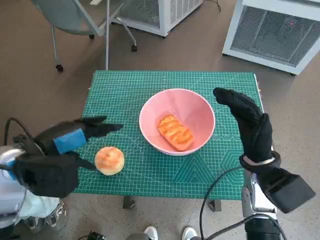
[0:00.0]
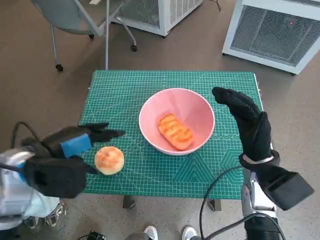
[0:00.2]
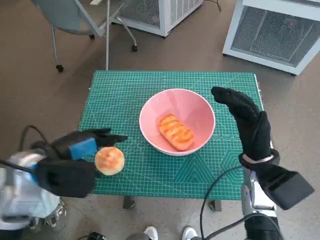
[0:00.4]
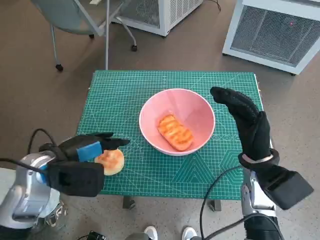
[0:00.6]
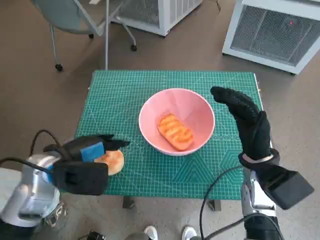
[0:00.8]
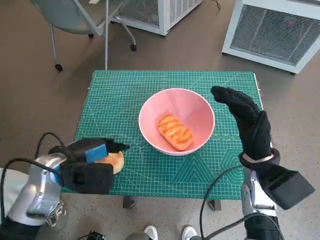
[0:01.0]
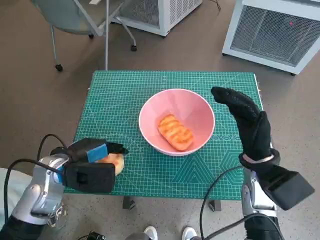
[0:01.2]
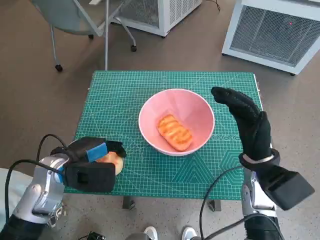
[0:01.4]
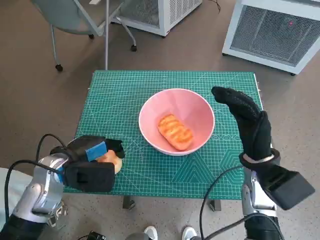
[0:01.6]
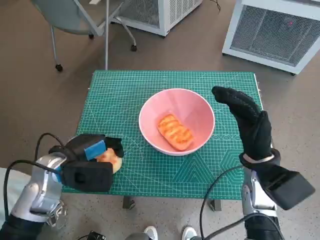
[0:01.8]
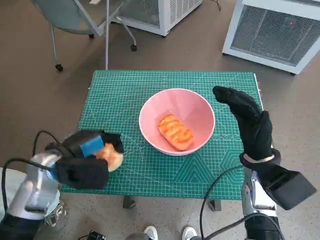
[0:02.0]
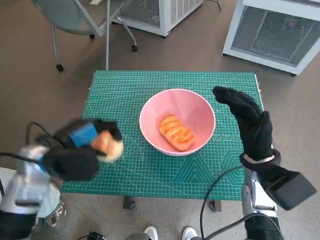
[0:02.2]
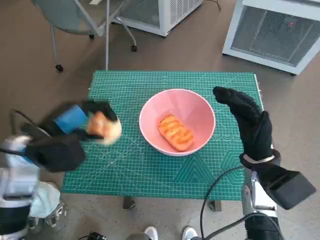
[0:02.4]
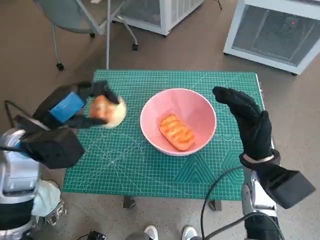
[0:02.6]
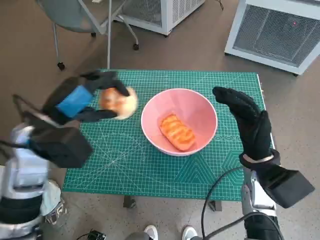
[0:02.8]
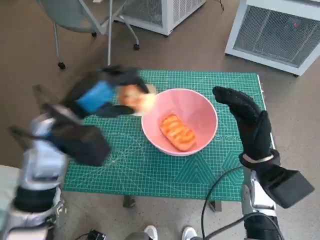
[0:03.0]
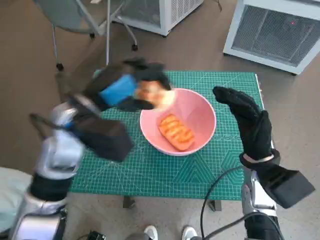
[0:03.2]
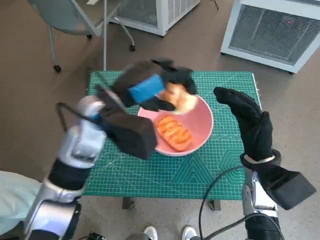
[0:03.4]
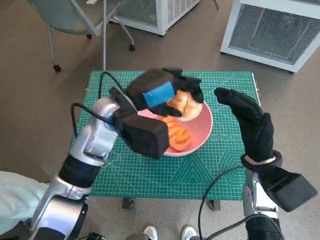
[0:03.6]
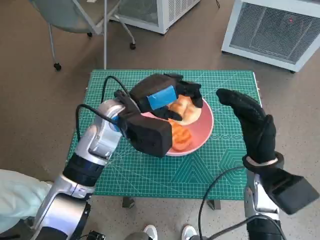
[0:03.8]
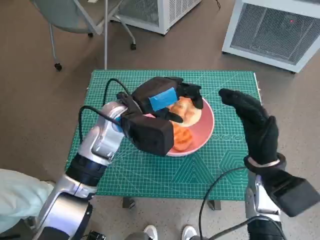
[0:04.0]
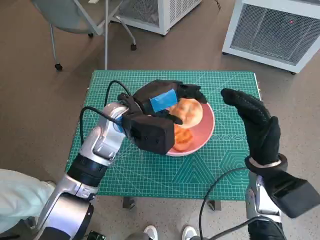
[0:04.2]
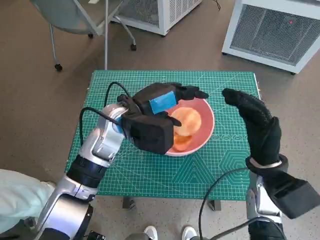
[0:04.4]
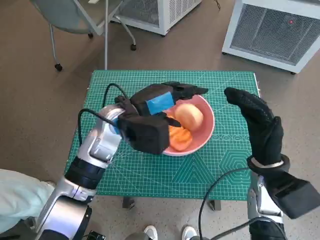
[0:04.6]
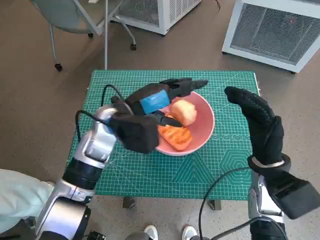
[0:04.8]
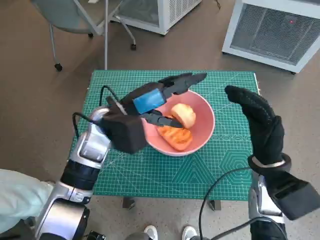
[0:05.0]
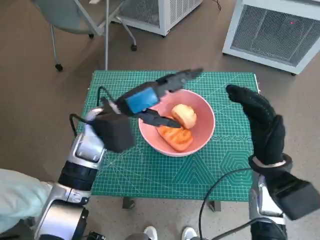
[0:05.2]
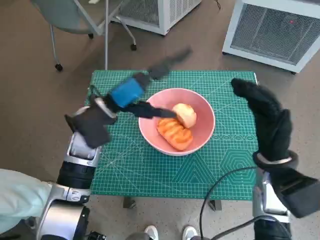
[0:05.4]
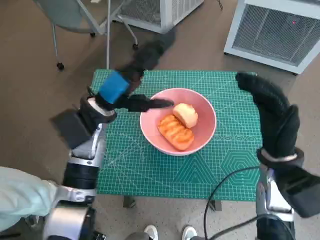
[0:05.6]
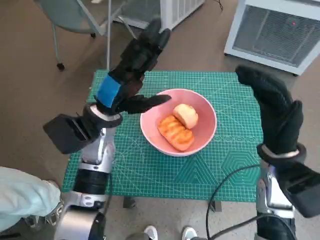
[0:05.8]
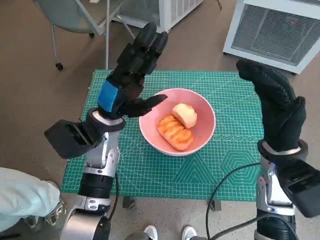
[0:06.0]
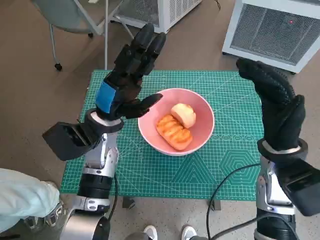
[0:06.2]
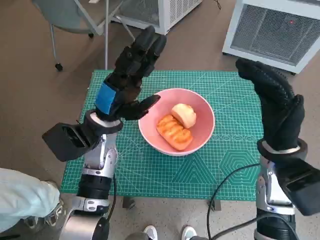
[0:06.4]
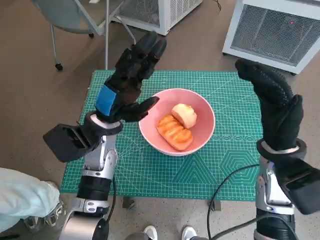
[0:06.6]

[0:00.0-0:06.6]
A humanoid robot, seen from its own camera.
Task of the whole recording: Push the bowl into the center of the table and put the bread into the bowl.
Step, 1.6 to 4.4 s: Place the round bread in pink bowl with left hand.
0.0 to 1.6 s: The left hand moves downward, some 10 cm.
1.6 to 3.2 s: The left hand moves upward and to the right, about 15 cm.
3.2 to 5.0 s: The left hand moves some 5 cm.

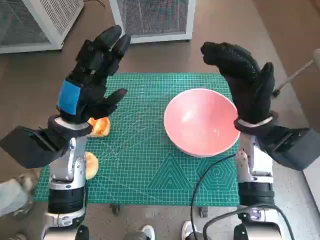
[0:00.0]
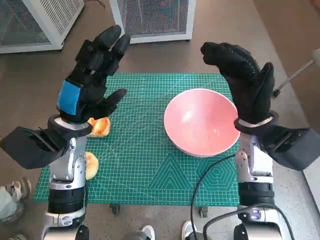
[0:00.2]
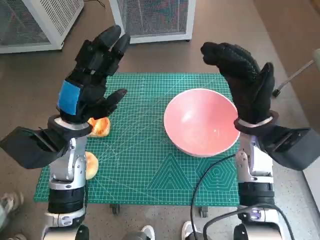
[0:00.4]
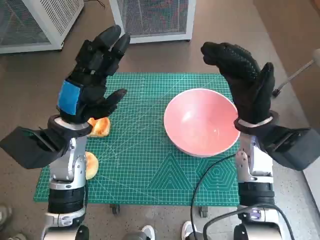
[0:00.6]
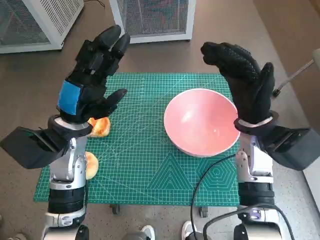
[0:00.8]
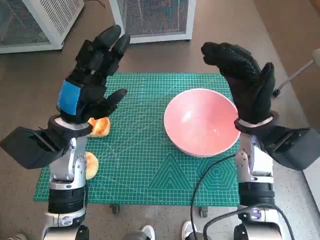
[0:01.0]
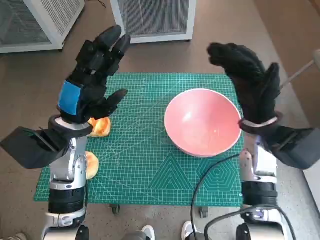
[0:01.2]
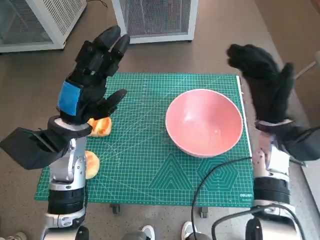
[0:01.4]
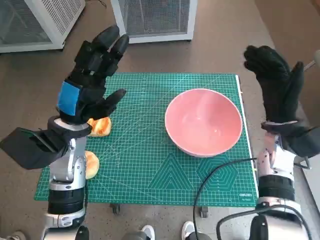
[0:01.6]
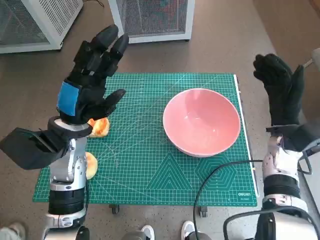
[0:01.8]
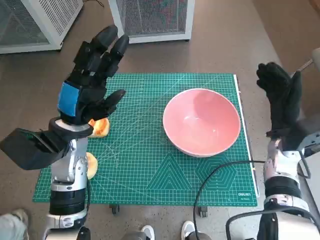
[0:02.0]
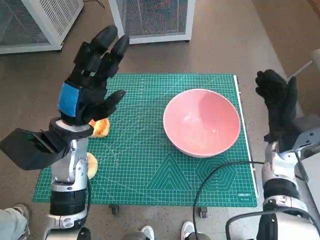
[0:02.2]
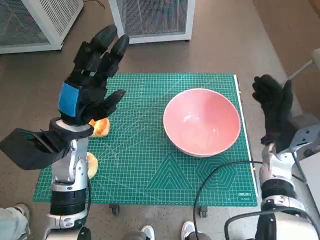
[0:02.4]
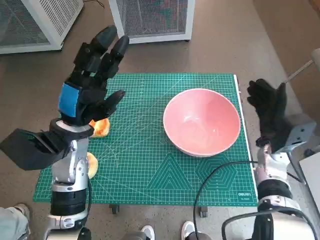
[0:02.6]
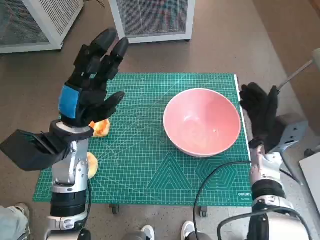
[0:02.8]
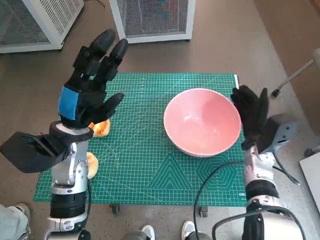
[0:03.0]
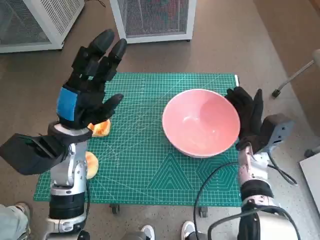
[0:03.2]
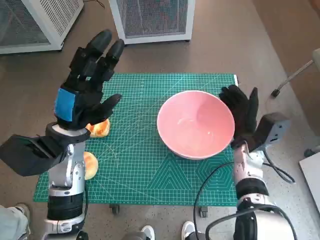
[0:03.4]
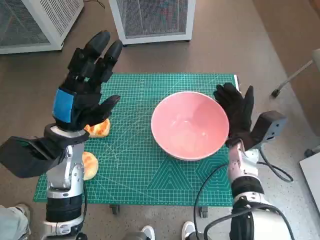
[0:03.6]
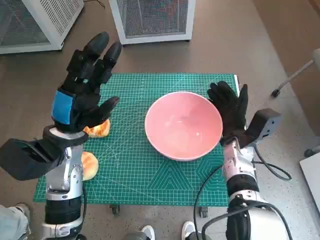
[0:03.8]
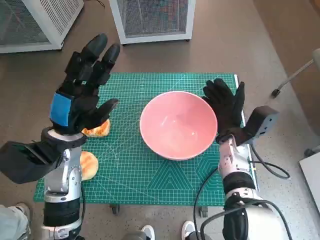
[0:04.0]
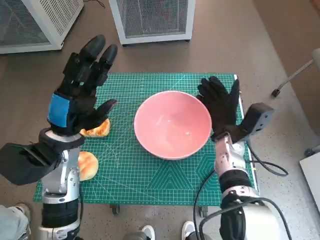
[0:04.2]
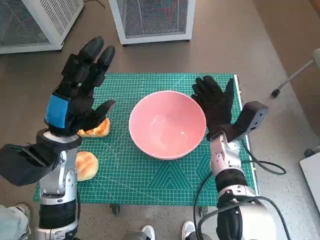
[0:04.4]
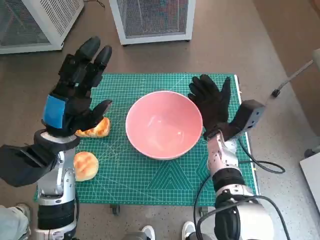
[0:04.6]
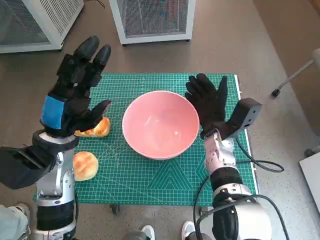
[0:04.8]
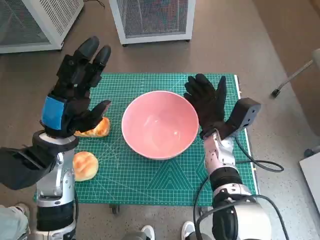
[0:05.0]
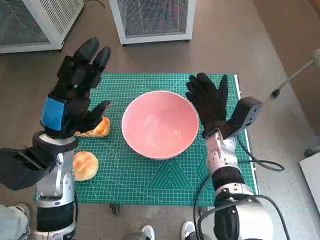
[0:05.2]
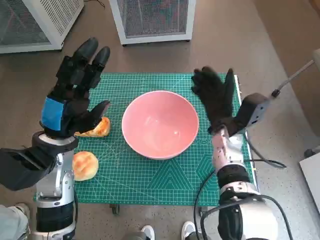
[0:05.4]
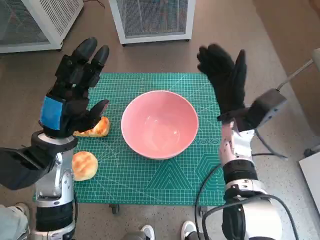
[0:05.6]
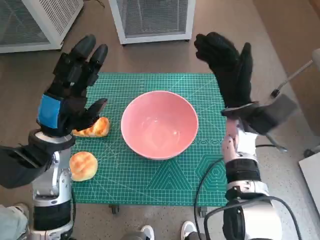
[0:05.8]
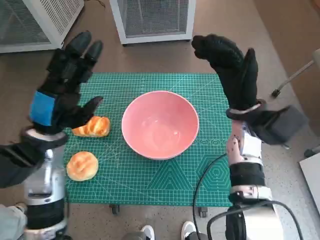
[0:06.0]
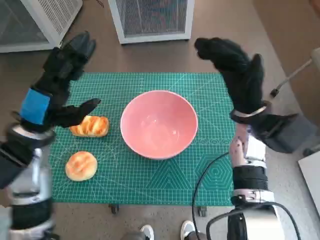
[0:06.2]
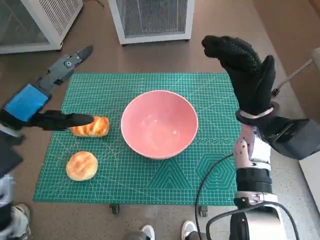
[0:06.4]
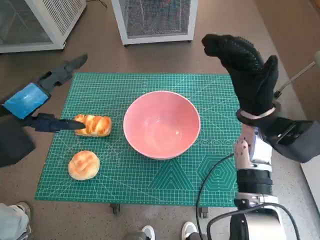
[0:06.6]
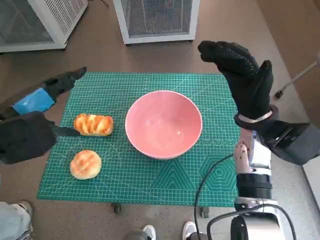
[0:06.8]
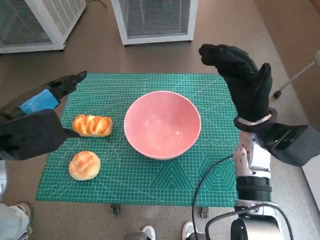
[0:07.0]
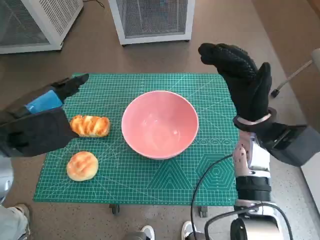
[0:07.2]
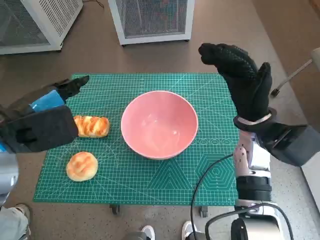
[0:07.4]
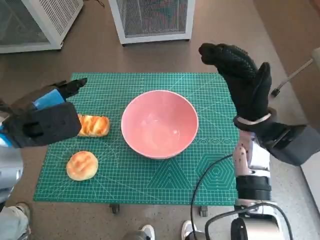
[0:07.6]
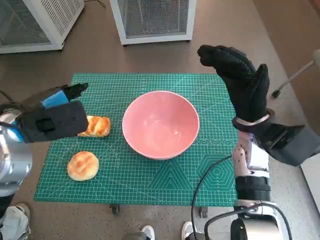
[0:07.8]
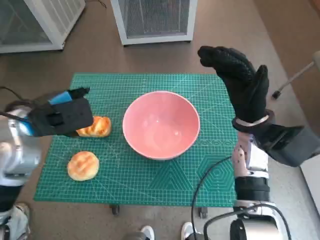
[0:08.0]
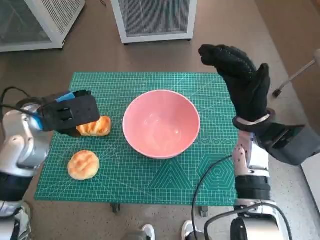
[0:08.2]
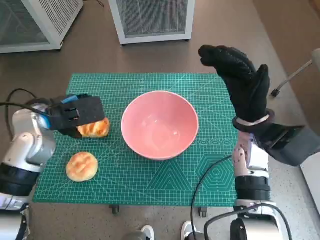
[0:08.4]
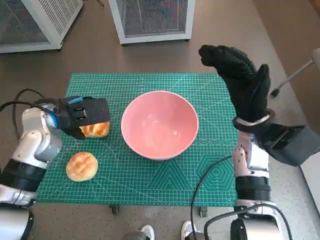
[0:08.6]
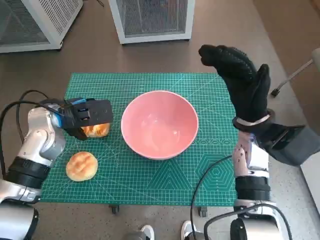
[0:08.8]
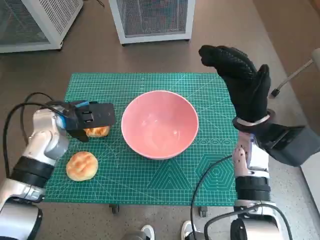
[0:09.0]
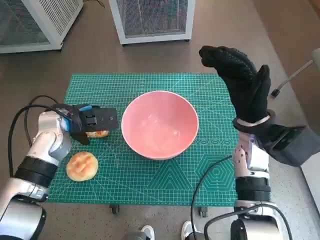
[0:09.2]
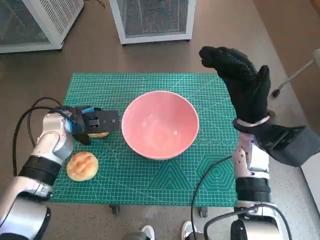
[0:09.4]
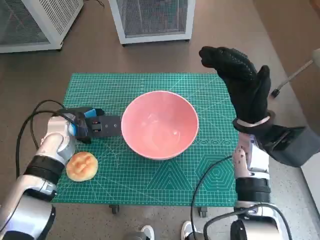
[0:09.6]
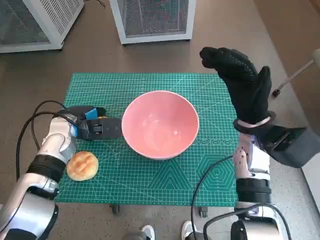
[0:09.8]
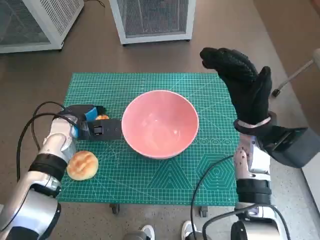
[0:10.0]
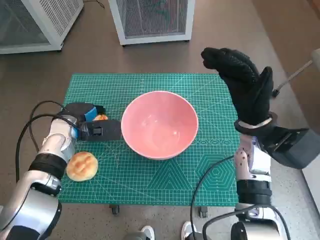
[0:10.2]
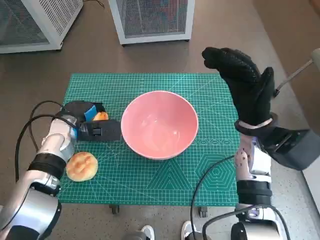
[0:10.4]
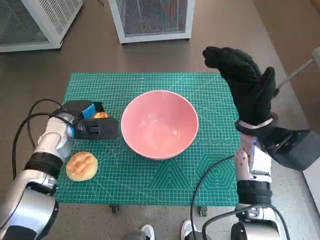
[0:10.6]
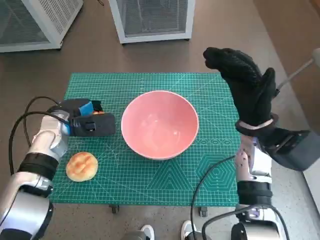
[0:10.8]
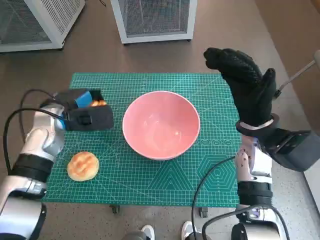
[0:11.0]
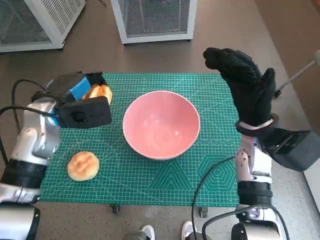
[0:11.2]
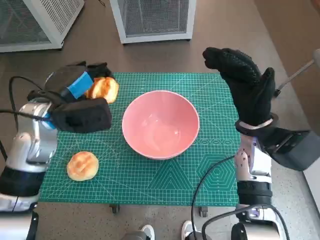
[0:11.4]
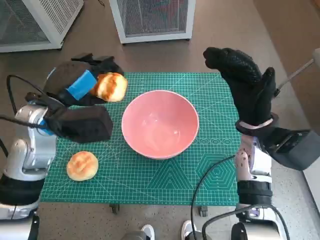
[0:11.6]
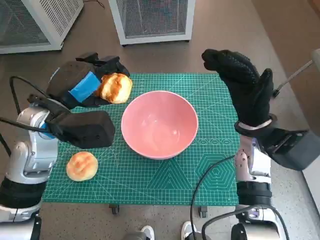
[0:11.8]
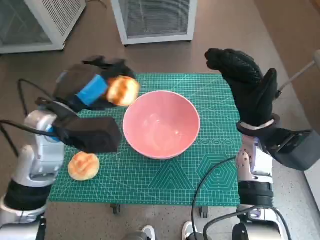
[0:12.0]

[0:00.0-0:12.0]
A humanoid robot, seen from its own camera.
Task of the whole recording: Push the bowl into the center of the table and put the bread into the bowl.
Step, 0.0 to 5.2 s: Move the pink bowl to the center of table with right hand.
Step, 5.4 to 9.6 s: Grasp the long bread with left hand.
1.6 to 3.0 s: The right hand moves downward, approximately 10 cm.
3.0 to 4.4 s: The right hand moves to the left, some 10 cm.
4.4 to 6.0 s: The right hand shifts some 10 cm upward.
6.0 to 7.6 s: The left hand goes roughly 5 cm upward.
7.6 to 9.0 s: The left hand shifts some 10 cm downward and forward.
9.0 to 10.4 s: The left hand moves downward, roughly 5 cm.
10.4 to 12.0 s: The left hand moves upward and backward, roughly 15 cm.

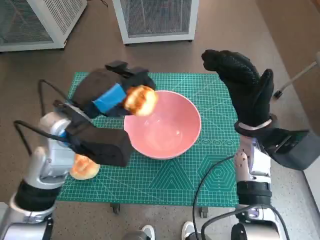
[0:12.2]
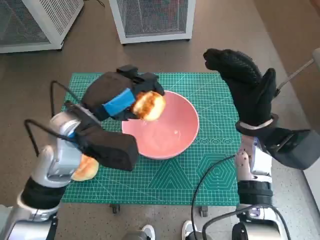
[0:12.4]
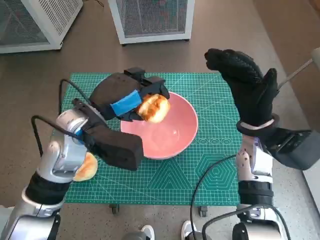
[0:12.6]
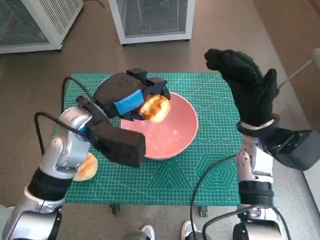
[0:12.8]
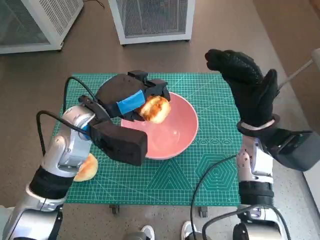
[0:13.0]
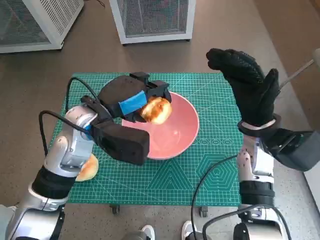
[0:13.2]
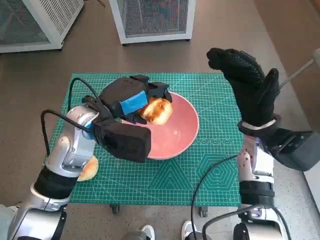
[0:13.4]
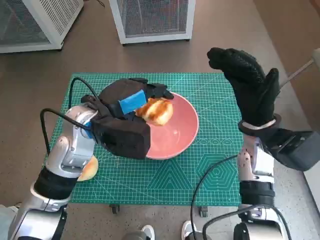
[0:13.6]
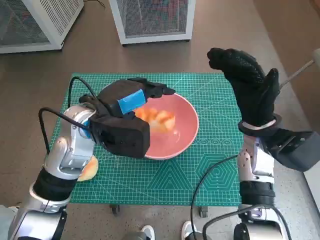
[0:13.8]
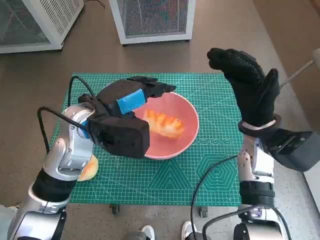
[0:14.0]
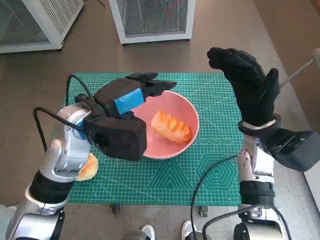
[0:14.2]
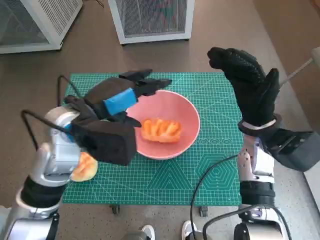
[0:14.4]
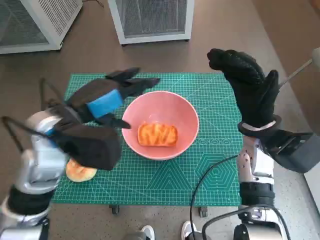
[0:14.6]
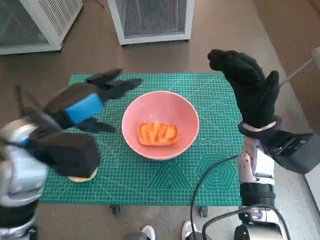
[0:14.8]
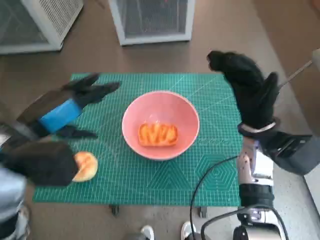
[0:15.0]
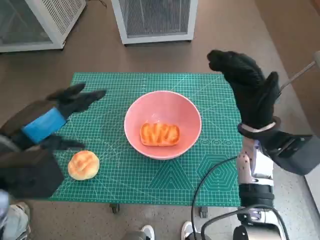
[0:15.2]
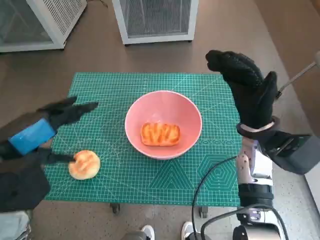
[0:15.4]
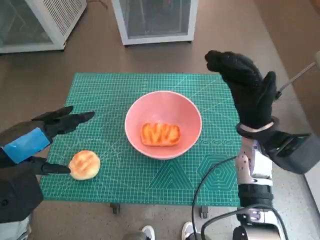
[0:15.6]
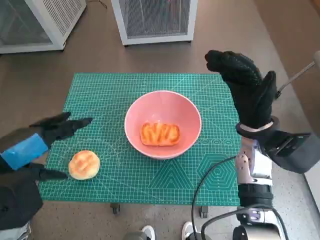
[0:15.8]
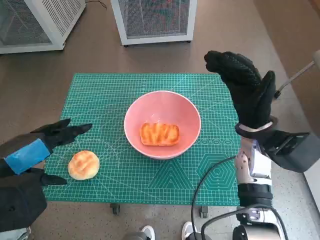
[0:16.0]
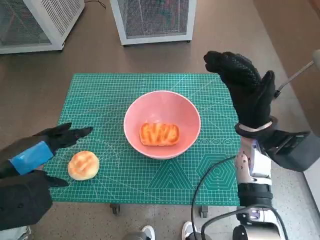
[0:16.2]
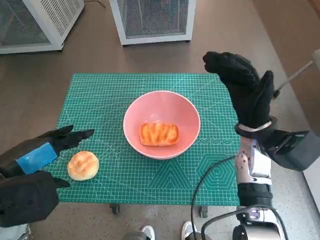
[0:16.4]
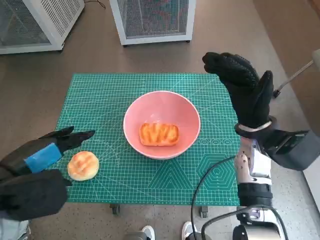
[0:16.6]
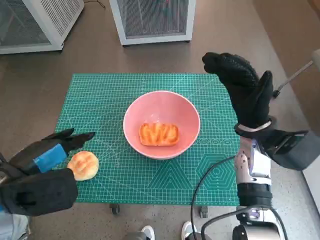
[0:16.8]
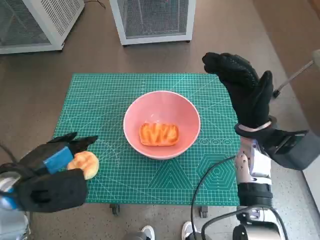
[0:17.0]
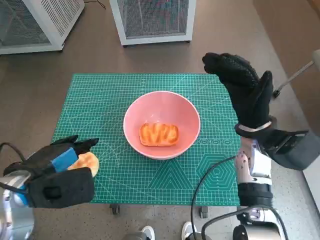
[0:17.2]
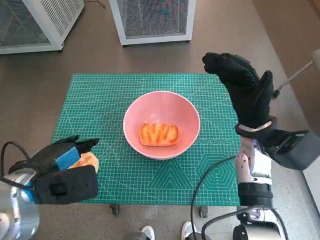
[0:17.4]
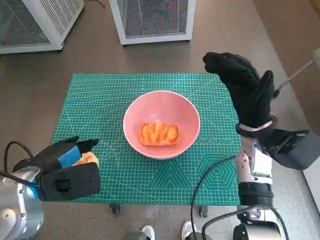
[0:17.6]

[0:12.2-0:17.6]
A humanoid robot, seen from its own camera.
Task of the whole recording: Push the bowl into the center of the table and put the bread into the bowl.
13.6 to 15.0 s: The left hand travels to the left and backward by approximately 10 cm.
15.0 to 16.2 s: The left hand goes roughly 5 cm backward.
16.2 to 17.6 s: The left hand is displaced downward by some 10 cm.
